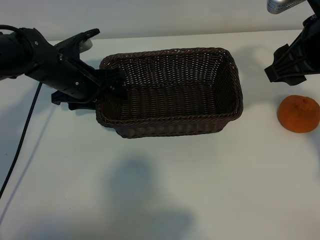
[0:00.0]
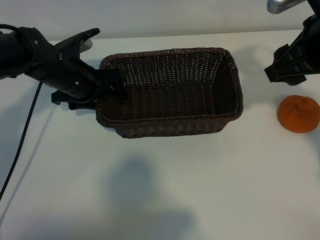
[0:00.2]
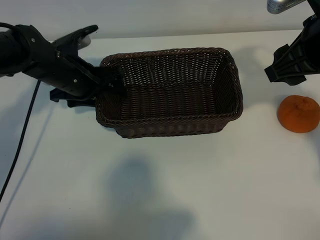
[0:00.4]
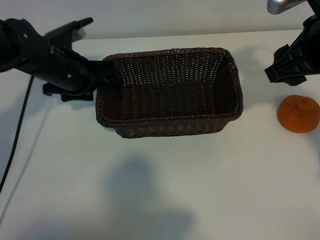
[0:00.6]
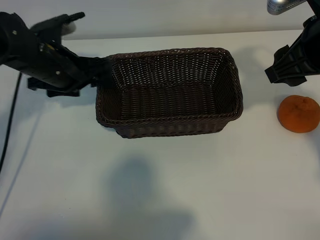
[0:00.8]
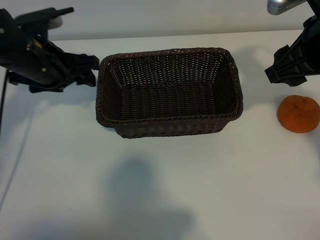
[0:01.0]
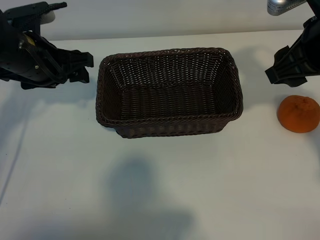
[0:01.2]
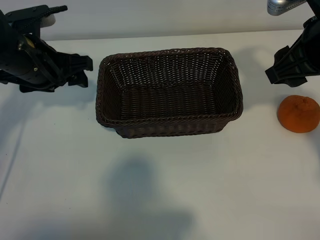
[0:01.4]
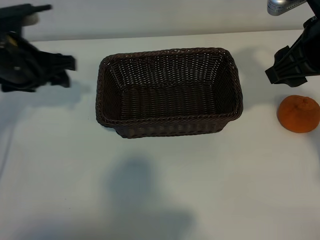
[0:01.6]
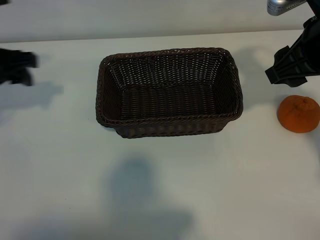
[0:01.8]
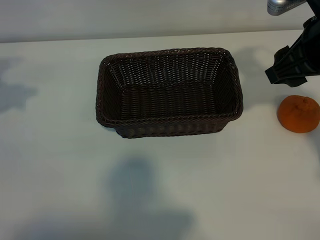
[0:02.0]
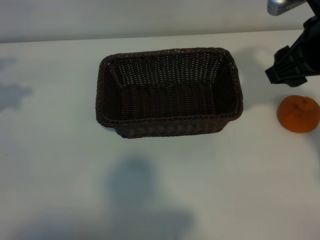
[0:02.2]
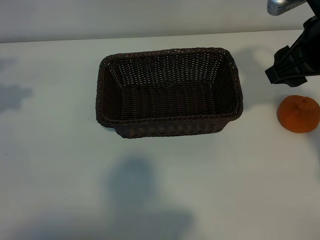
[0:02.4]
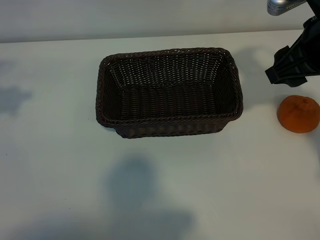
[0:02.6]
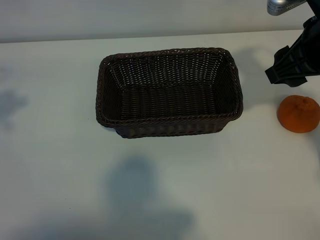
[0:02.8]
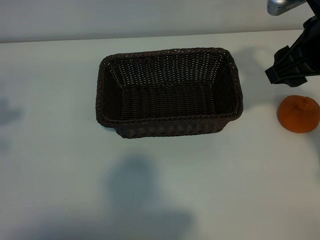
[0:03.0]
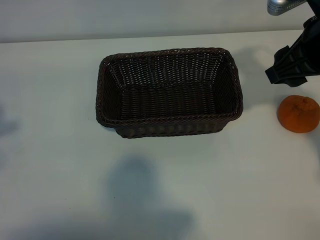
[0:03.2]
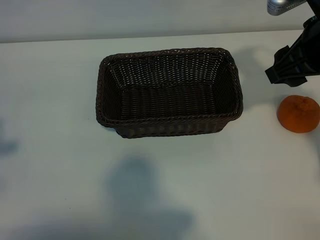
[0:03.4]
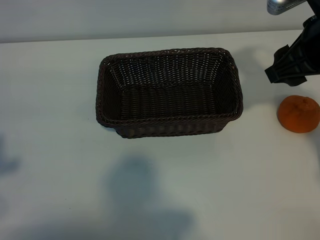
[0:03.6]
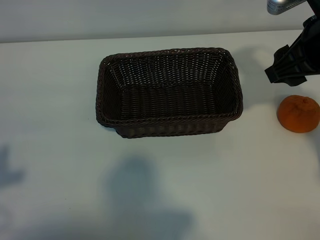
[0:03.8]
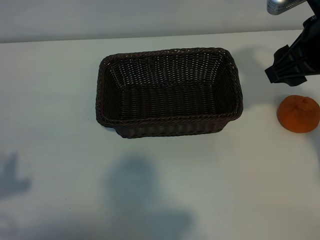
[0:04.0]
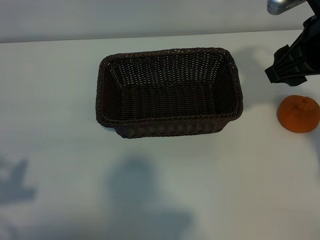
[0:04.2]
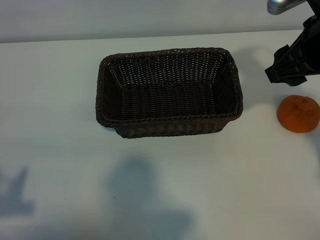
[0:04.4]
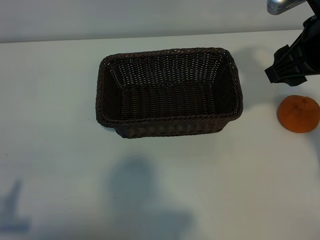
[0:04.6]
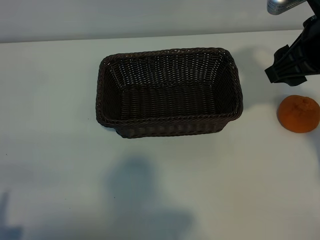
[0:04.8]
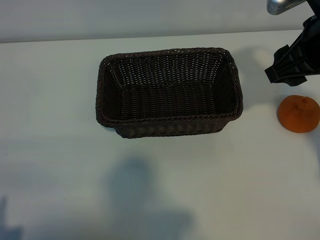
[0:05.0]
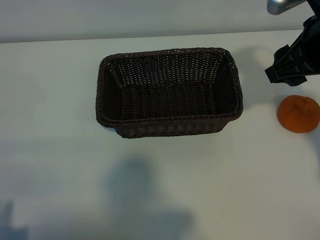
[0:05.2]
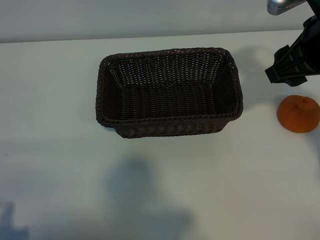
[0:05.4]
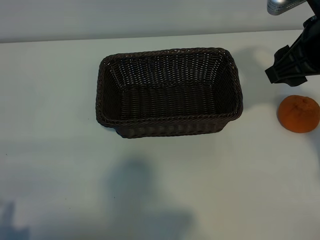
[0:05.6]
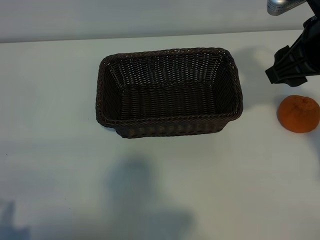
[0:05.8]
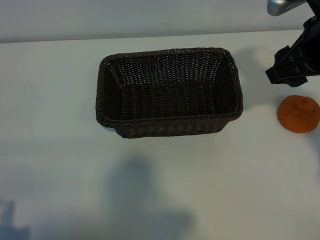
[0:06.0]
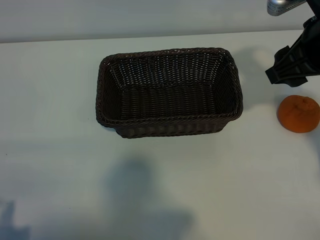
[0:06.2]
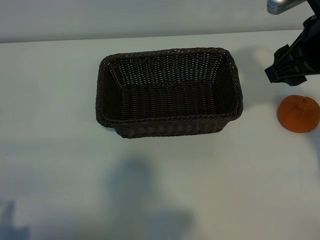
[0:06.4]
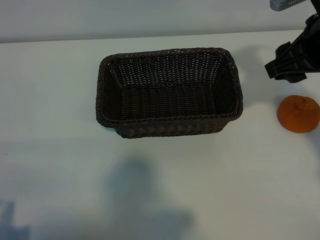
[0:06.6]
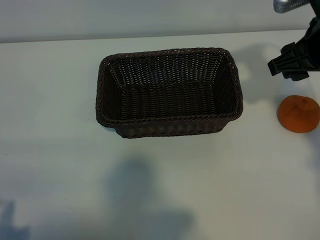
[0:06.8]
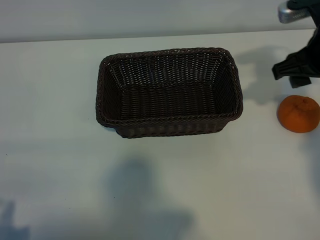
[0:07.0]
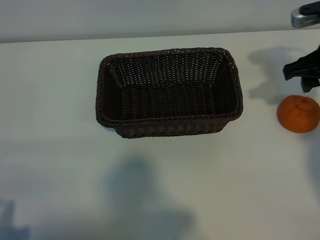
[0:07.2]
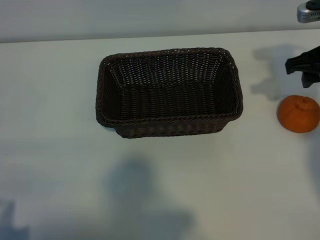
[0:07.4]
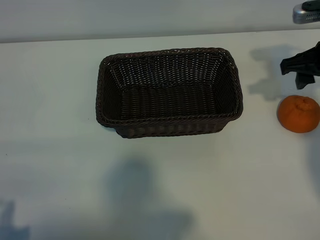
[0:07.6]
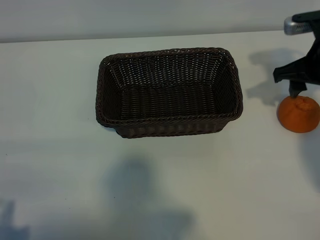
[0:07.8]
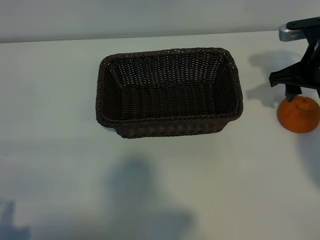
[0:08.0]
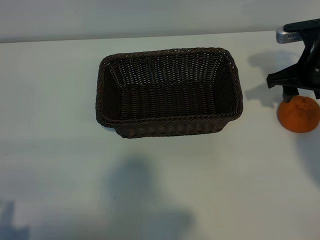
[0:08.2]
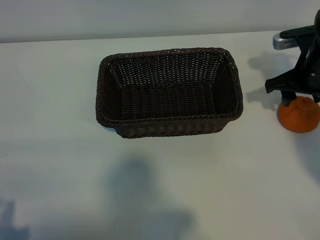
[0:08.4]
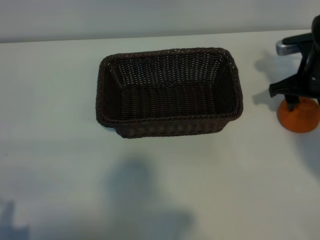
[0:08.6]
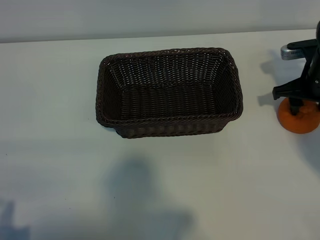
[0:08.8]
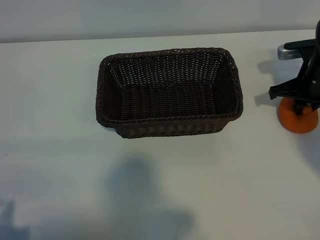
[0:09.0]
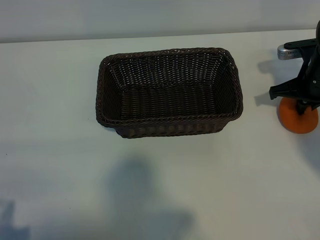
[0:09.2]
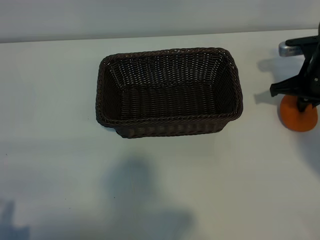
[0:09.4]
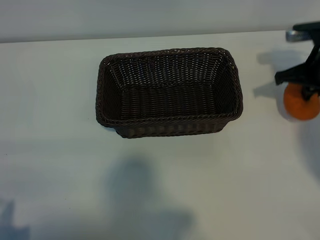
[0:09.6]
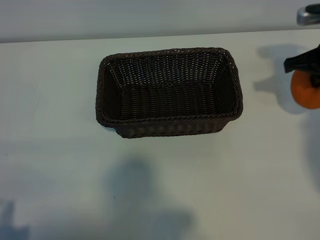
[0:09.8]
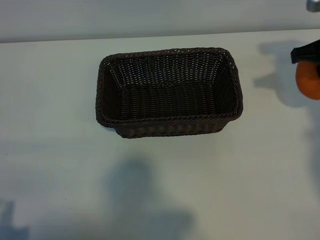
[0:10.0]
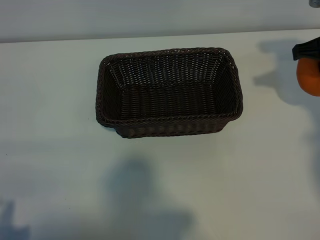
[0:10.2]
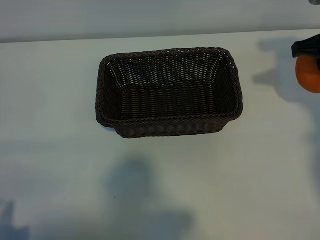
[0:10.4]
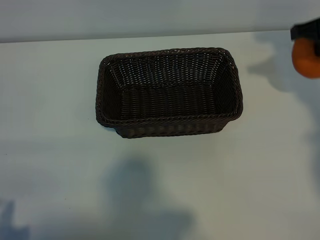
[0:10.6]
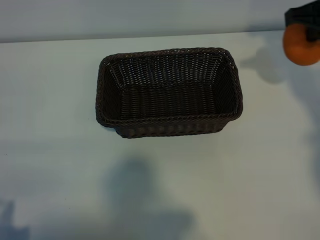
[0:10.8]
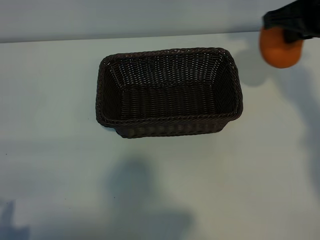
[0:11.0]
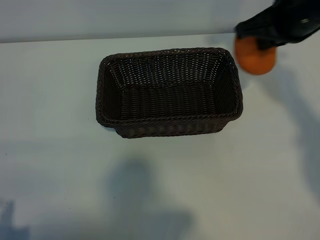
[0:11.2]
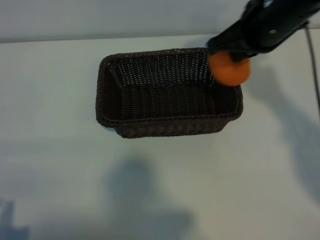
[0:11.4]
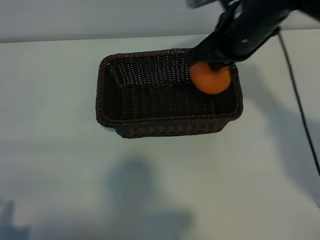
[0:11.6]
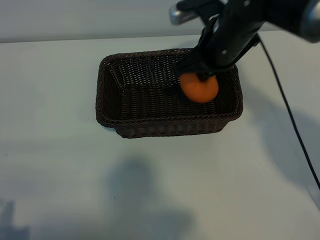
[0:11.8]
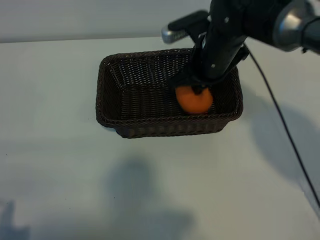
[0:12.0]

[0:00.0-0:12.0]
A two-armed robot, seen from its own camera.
Task of the whole recording: pick up the orange and put it into the basket.
Step, 0:00.0 to 0:09.0: Grasp the orange with right gripper.
